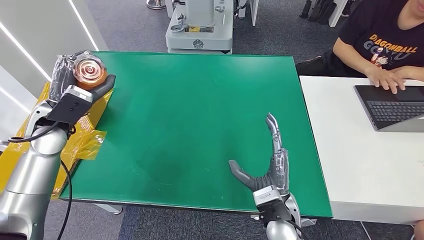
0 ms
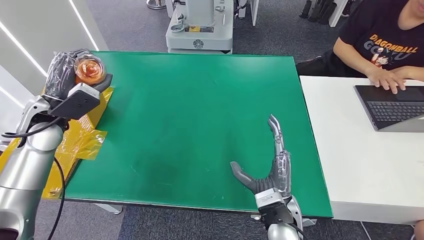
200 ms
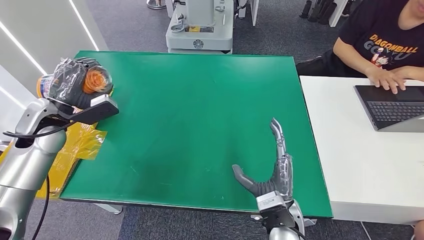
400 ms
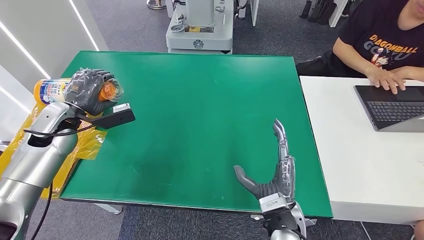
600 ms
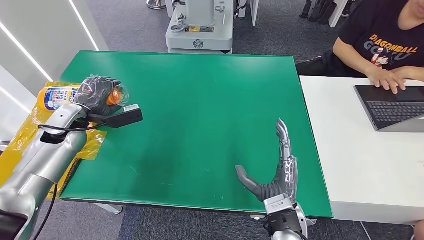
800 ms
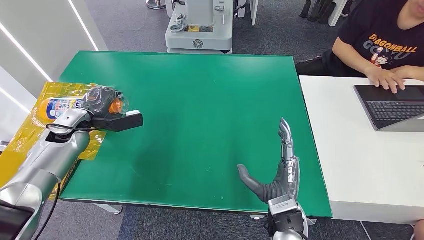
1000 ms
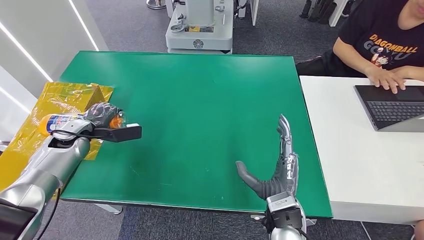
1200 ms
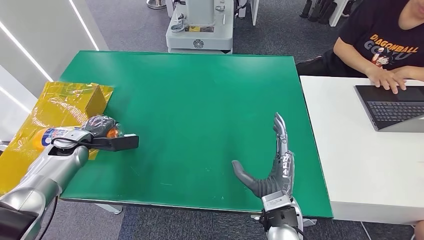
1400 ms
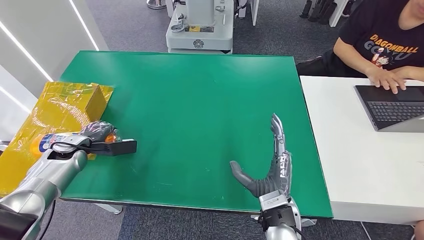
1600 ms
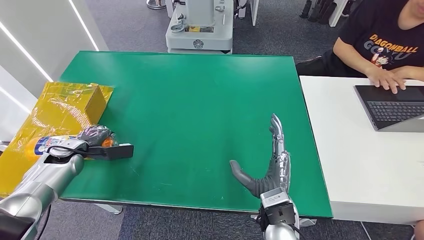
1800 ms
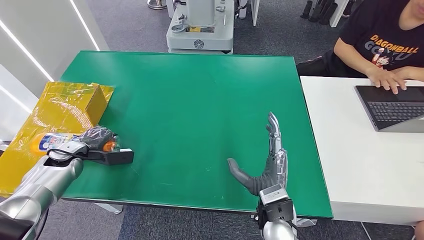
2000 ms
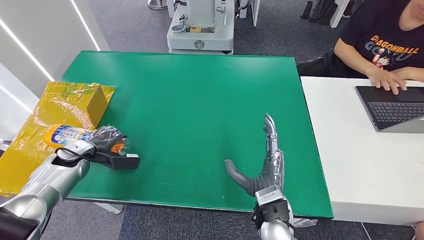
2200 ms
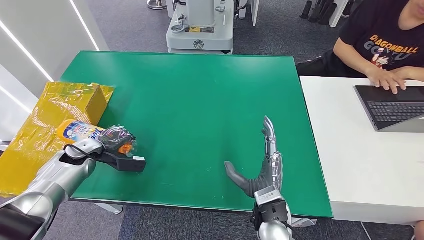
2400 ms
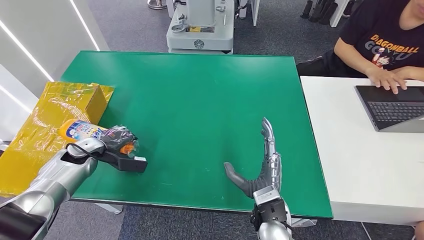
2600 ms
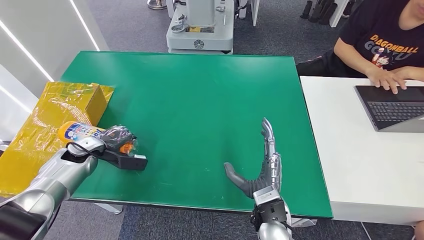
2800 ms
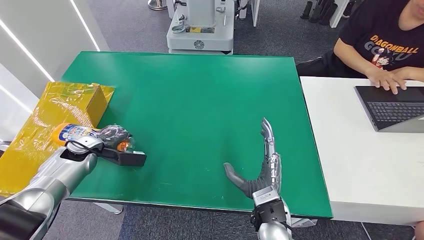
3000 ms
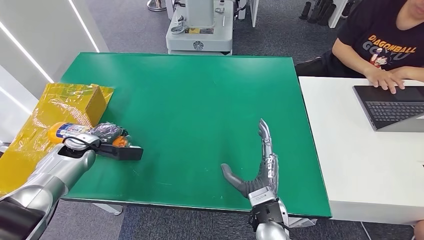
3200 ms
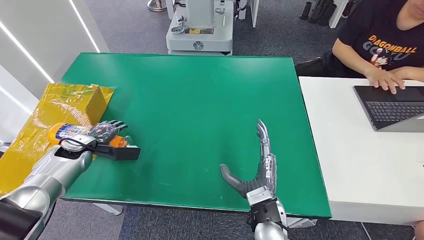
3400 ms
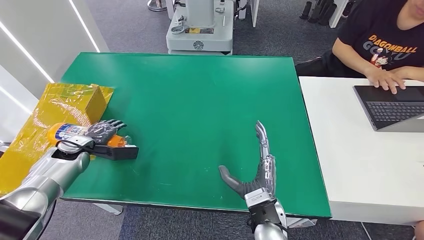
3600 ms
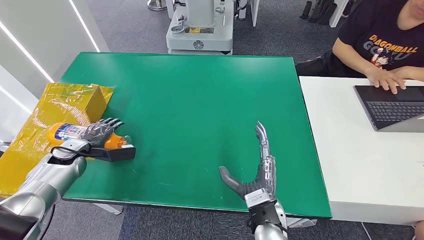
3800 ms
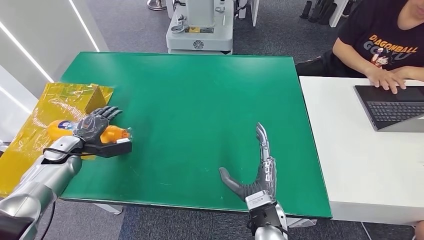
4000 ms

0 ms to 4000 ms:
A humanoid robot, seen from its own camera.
Step, 0 ms to 4000 ms: Turn the bottle to the front side.
0 ms to 1400 ms: The left hand travels downward and to the left by roughly 15 cm.

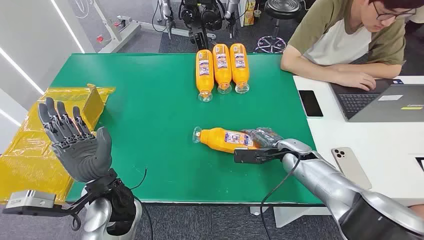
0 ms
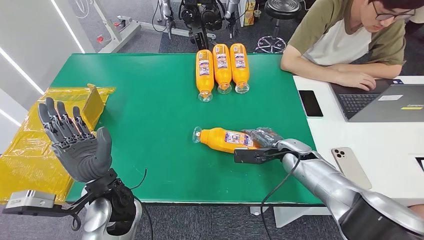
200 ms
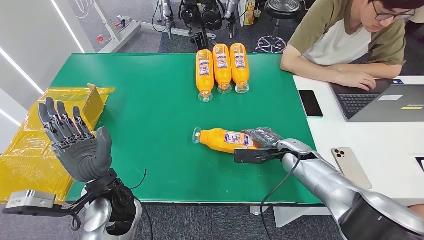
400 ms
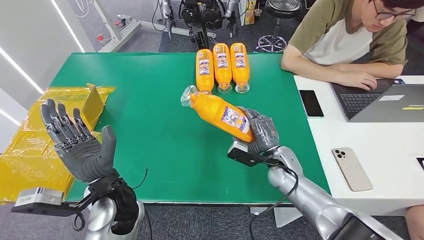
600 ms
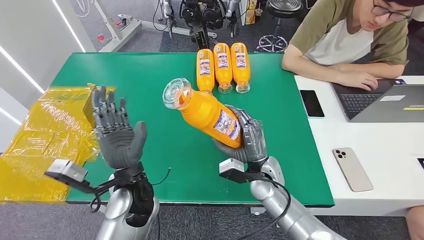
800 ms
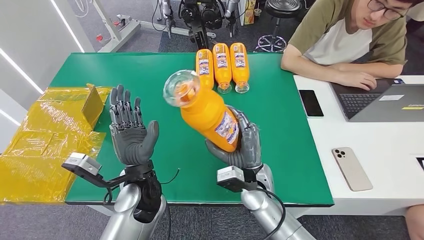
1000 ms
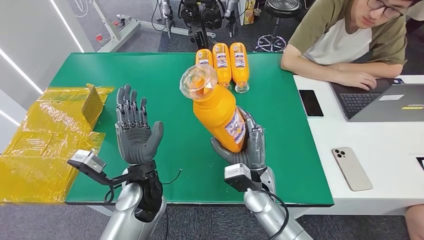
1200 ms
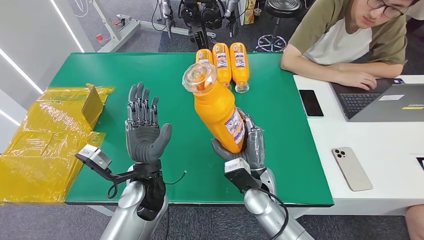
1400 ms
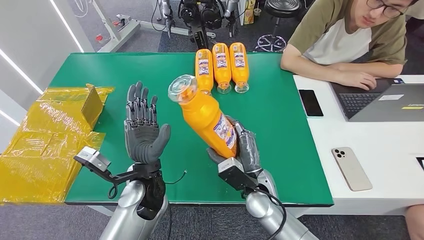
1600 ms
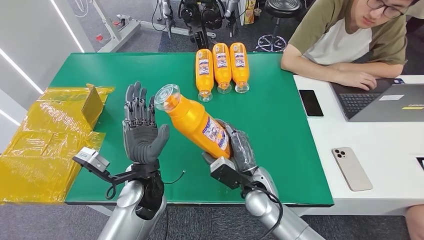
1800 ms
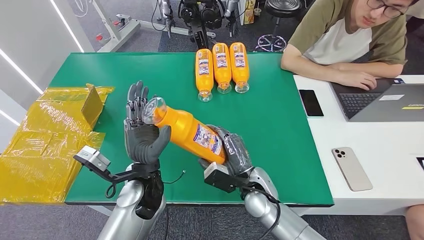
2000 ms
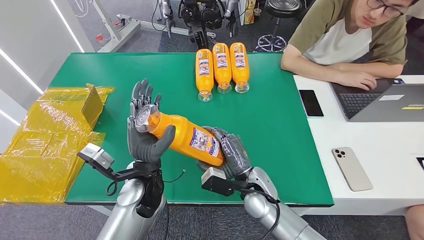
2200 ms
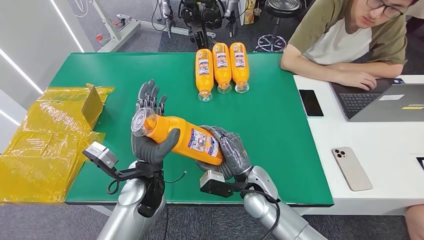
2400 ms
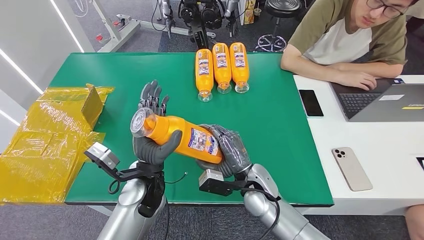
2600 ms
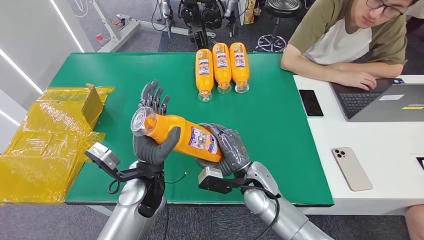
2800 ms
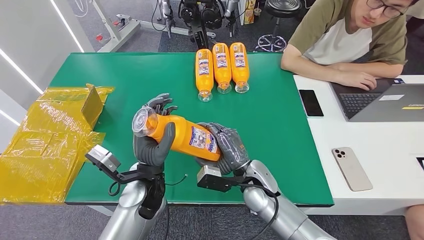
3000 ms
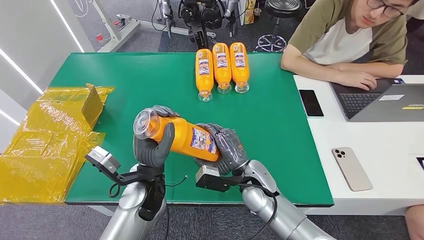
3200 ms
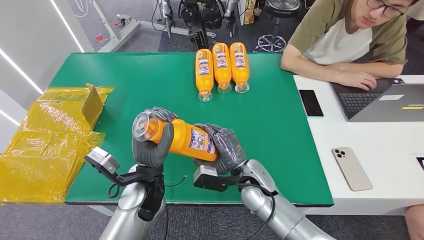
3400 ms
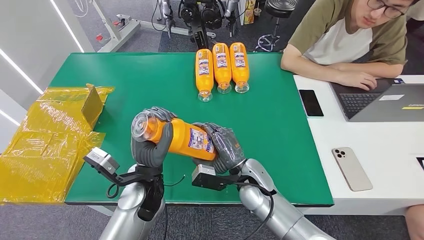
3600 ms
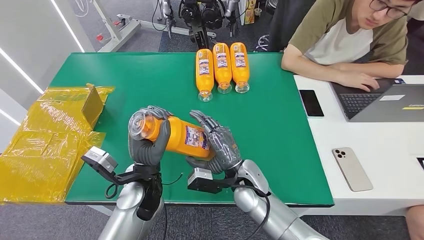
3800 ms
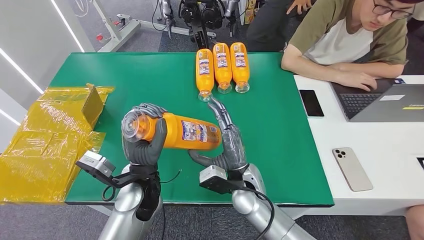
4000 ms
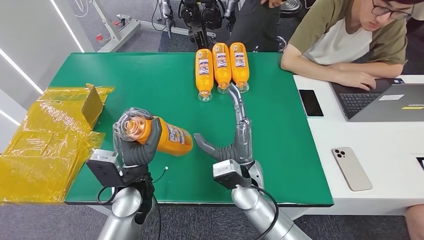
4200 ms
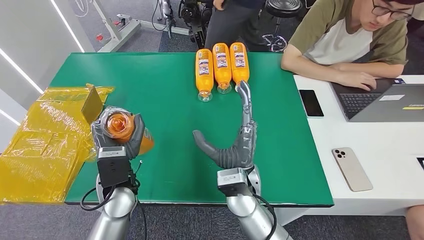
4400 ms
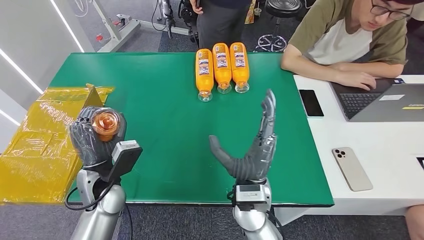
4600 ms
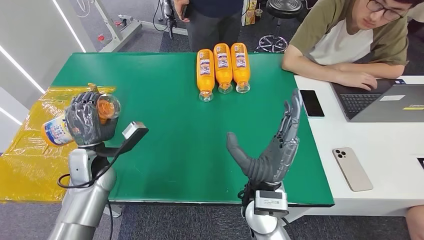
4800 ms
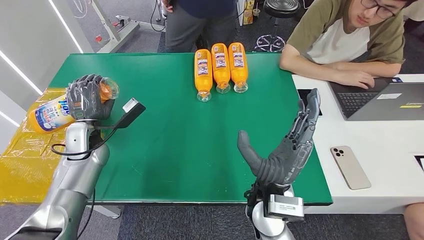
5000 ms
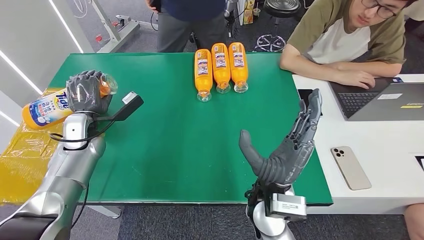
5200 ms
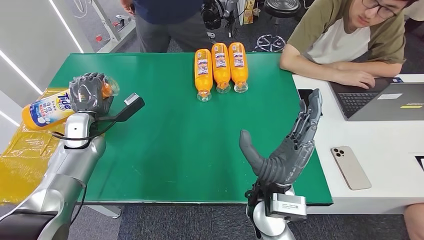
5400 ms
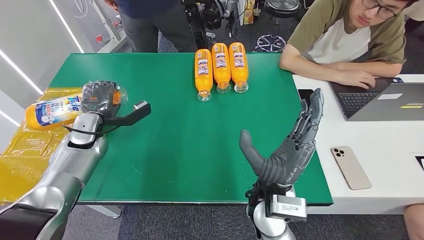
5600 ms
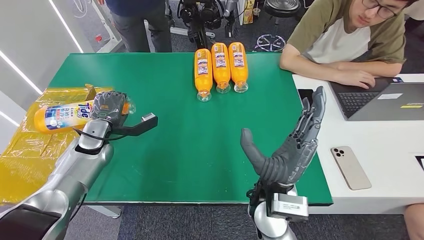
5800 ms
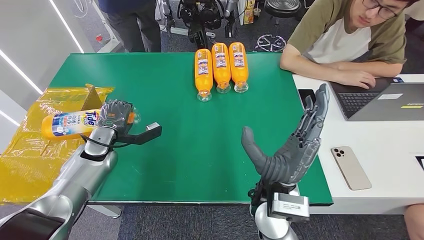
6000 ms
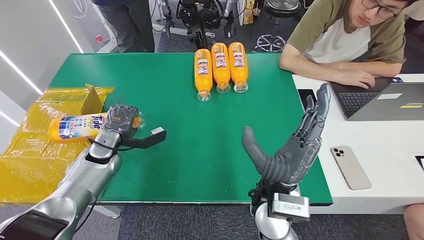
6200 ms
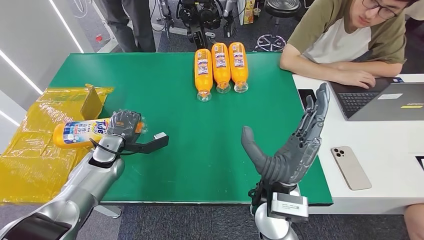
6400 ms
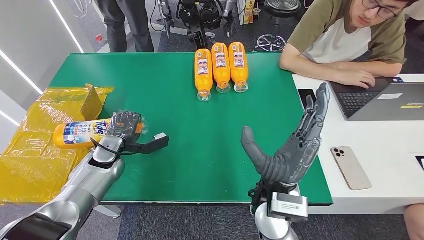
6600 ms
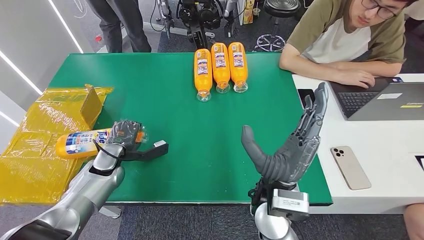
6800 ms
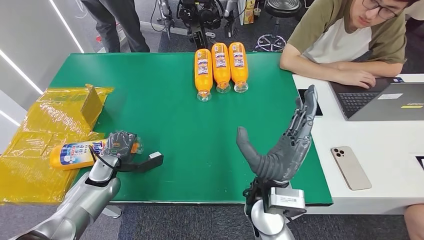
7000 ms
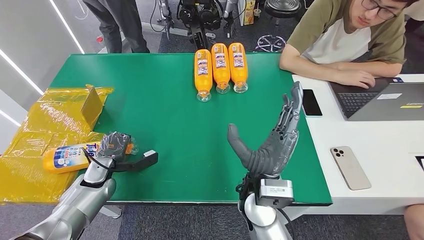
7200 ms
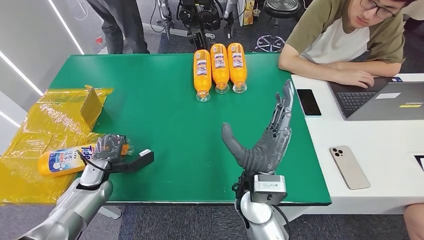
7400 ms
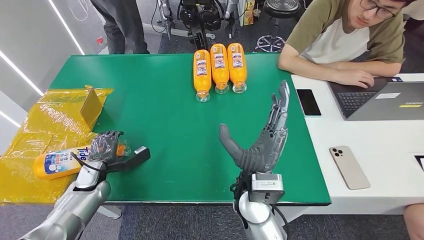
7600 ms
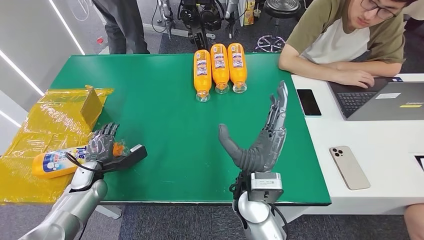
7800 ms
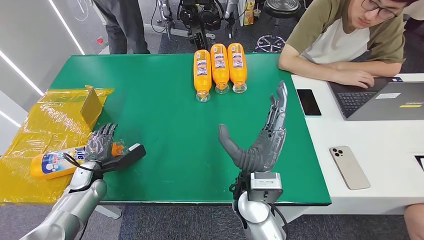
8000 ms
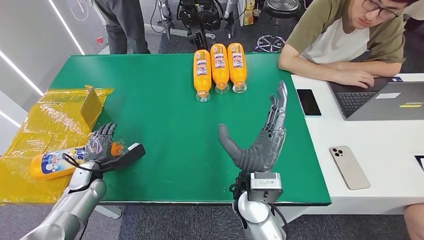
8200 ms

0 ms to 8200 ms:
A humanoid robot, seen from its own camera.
Step, 0 ms to 1600 ms: Pick up the bottle from the table.
Step, 1800 ms to 8200 ms: Turn the bottle to the front side.
5000 ms to 6600 ms: The left hand moves downward, roughly 5 cm.
6600 ms to 8200 ms: The left hand goes about 10 cm backward, downward and to the left.

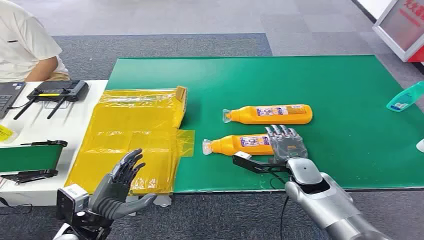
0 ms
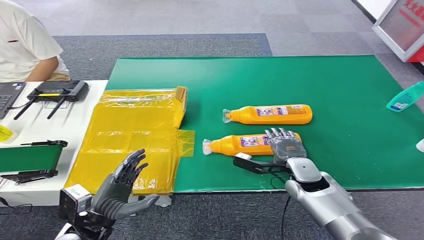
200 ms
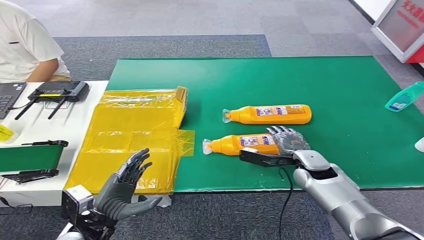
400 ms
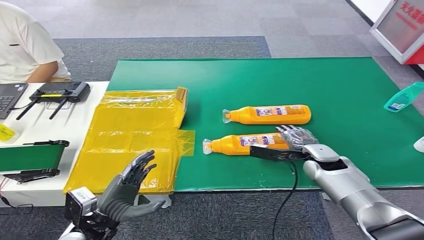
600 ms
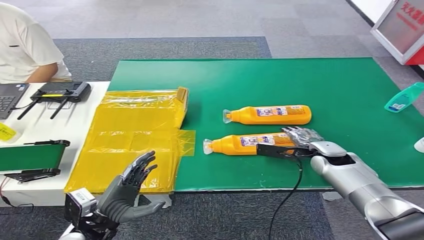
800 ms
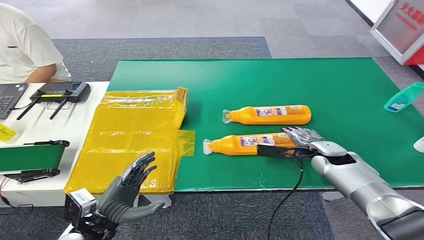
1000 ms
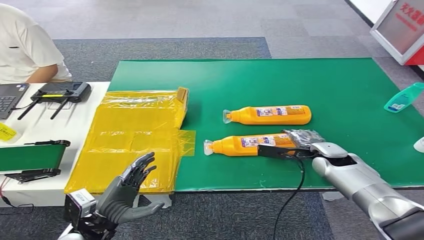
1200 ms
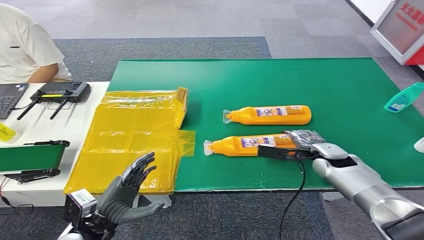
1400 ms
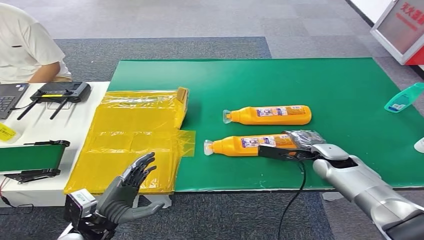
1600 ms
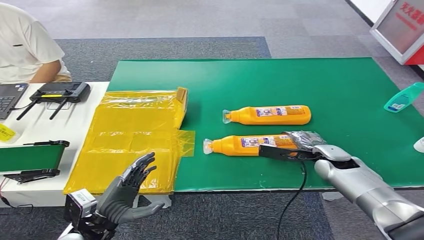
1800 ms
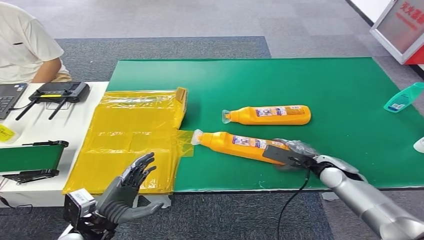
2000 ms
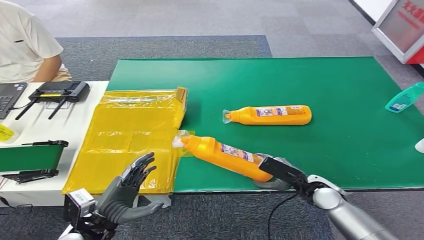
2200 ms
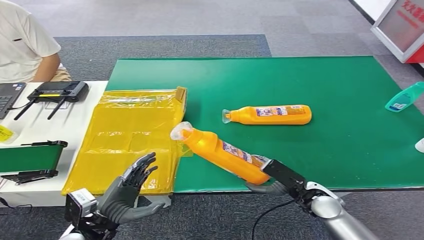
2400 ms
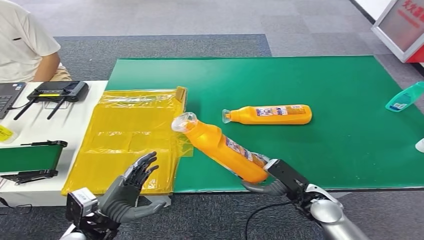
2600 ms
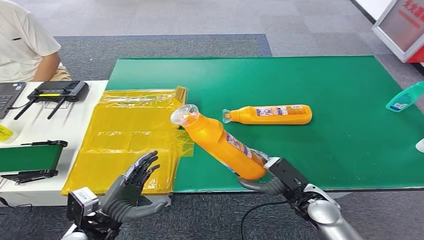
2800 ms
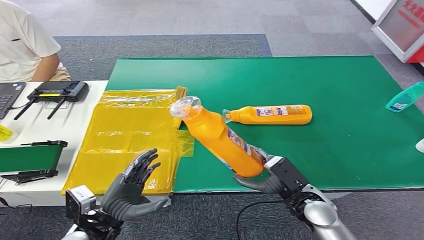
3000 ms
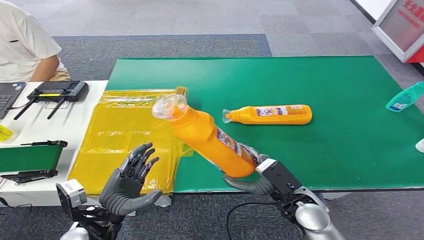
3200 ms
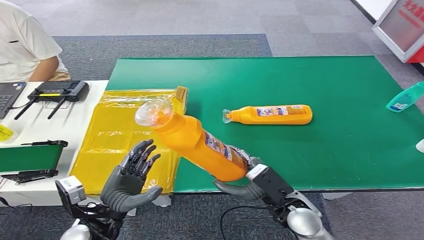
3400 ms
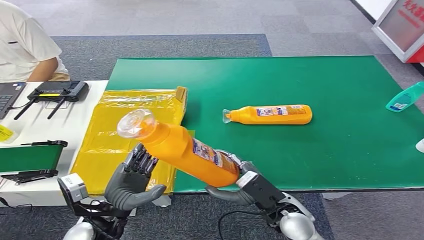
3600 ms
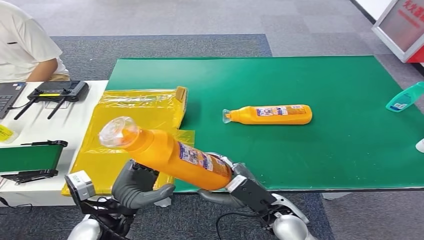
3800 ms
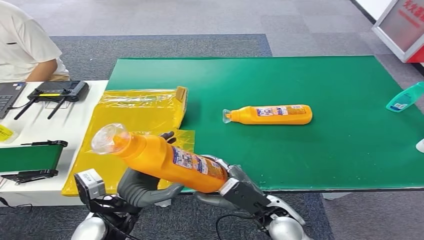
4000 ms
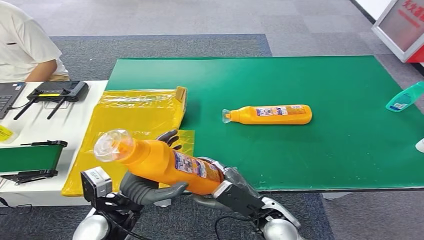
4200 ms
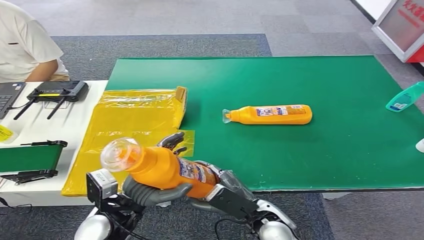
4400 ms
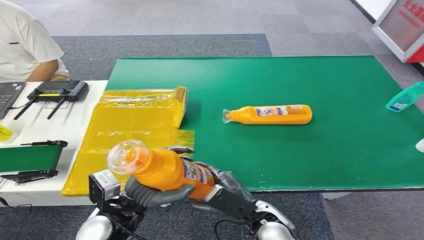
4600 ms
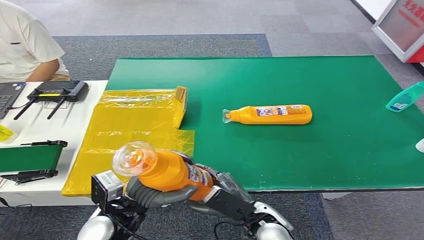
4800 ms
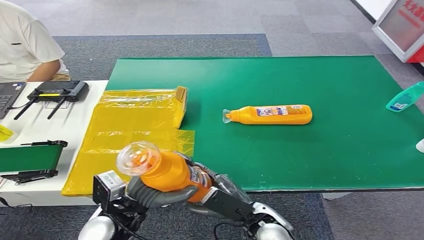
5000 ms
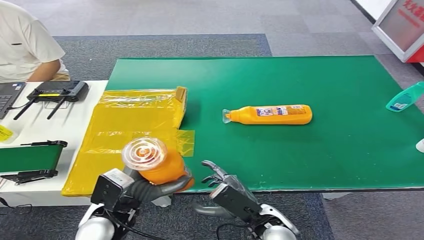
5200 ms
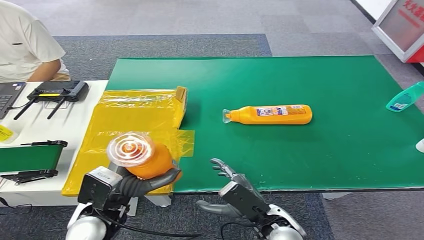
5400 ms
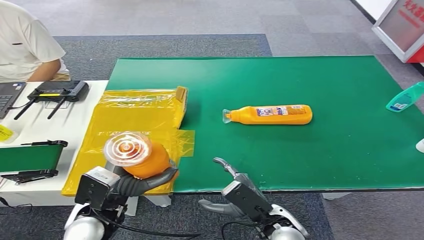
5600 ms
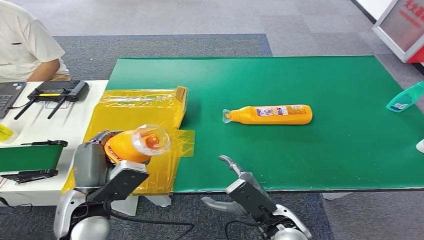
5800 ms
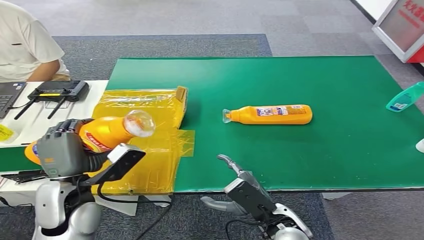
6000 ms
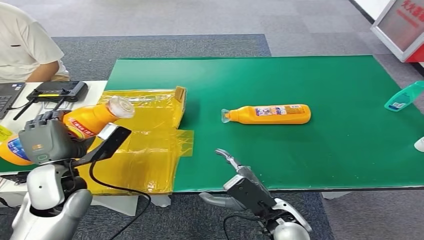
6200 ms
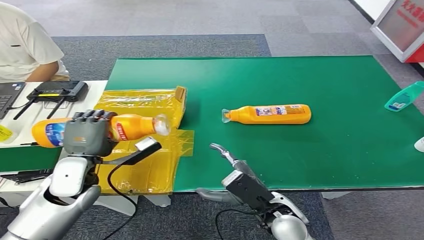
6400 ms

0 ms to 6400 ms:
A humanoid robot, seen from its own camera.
Step, 0 ms to 3400 ms: Pick up the bottle from the table.
3200 ms to 4800 ms: The right hand moves to the left, approximately 10 cm, while the left hand shifts by some 5 cm.
4800 ms to 6400 ms: The left hand travels forward and to the left by roughly 15 cm.
